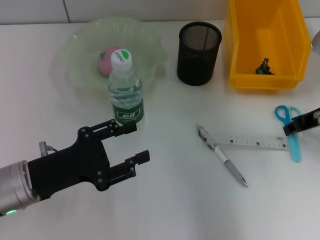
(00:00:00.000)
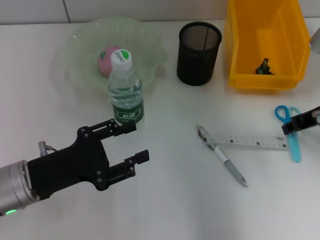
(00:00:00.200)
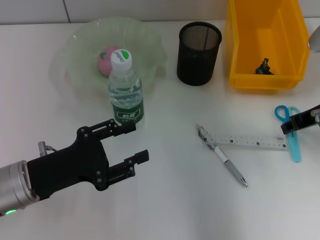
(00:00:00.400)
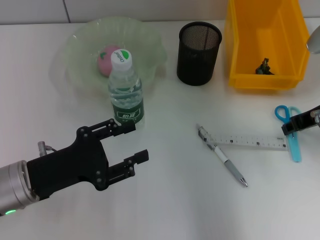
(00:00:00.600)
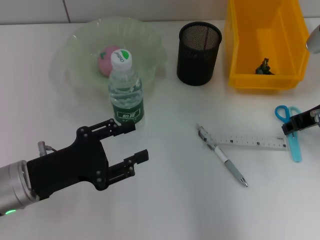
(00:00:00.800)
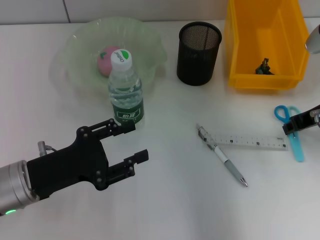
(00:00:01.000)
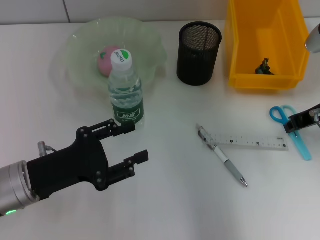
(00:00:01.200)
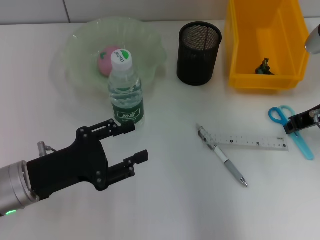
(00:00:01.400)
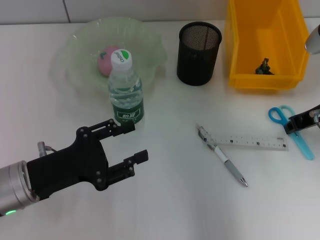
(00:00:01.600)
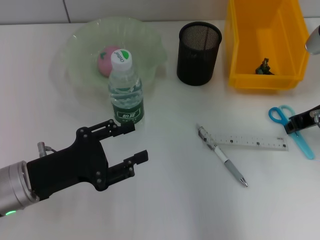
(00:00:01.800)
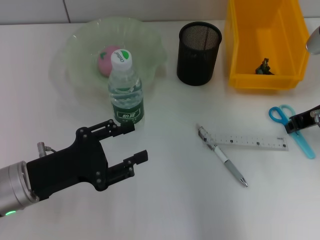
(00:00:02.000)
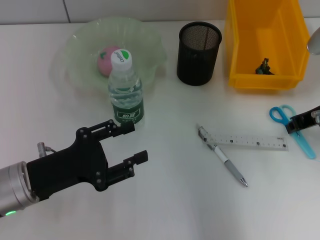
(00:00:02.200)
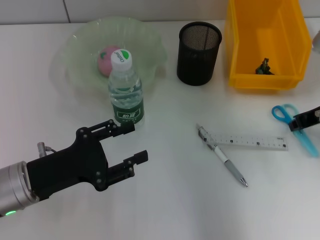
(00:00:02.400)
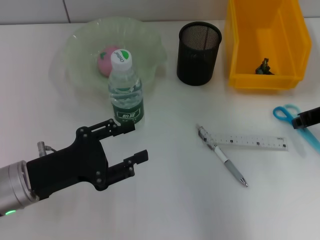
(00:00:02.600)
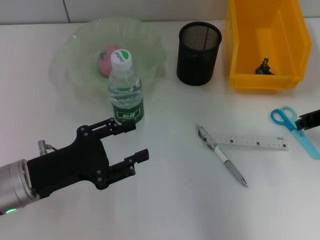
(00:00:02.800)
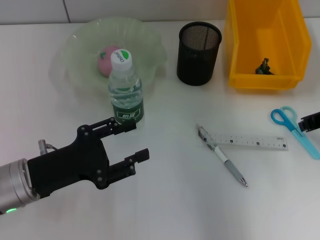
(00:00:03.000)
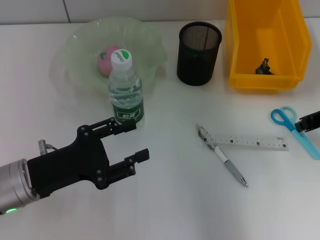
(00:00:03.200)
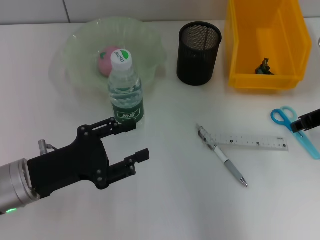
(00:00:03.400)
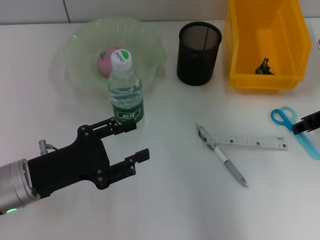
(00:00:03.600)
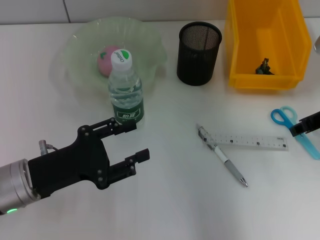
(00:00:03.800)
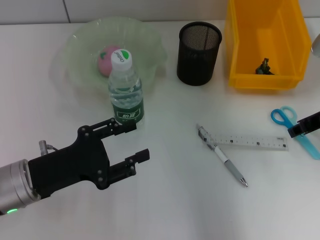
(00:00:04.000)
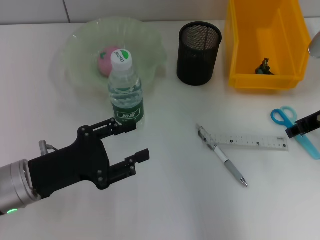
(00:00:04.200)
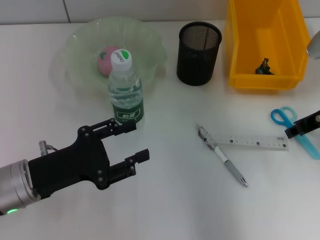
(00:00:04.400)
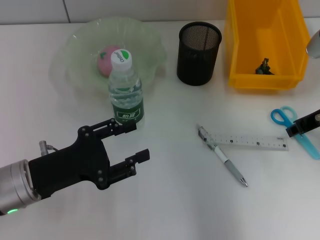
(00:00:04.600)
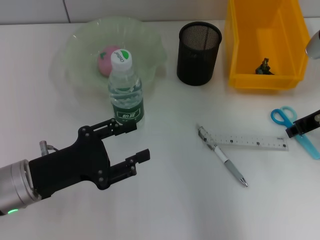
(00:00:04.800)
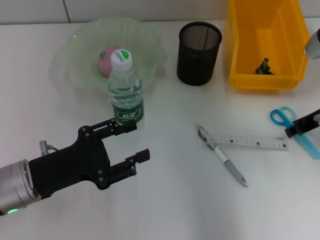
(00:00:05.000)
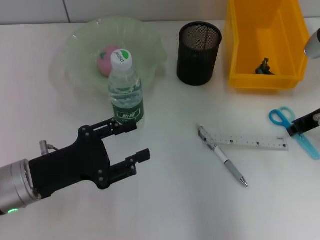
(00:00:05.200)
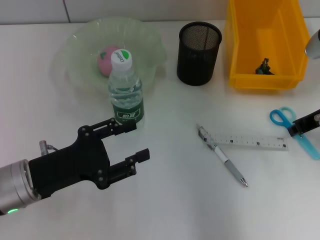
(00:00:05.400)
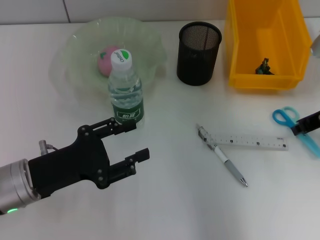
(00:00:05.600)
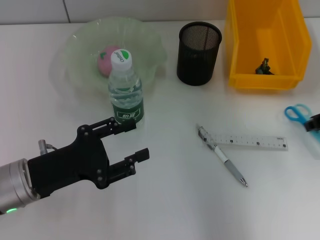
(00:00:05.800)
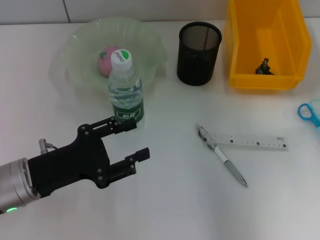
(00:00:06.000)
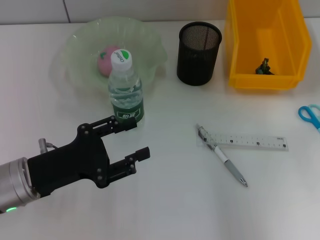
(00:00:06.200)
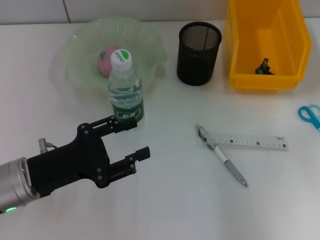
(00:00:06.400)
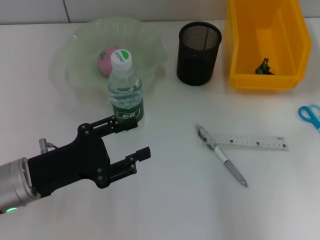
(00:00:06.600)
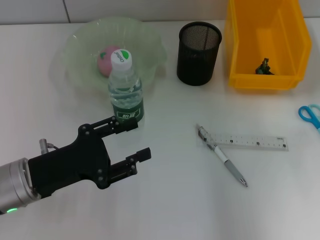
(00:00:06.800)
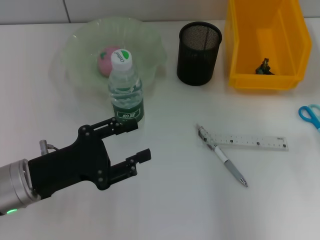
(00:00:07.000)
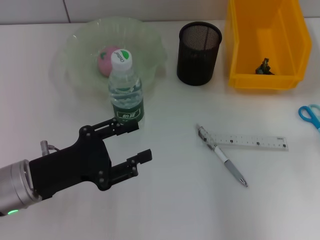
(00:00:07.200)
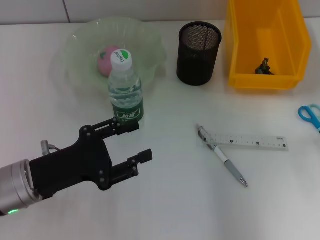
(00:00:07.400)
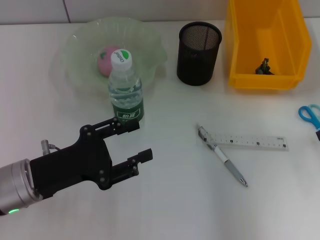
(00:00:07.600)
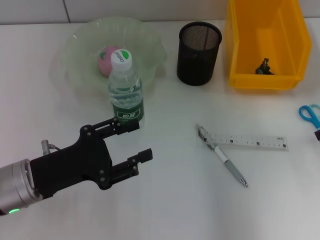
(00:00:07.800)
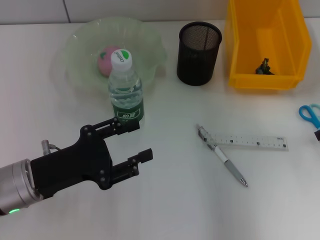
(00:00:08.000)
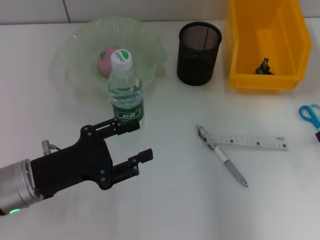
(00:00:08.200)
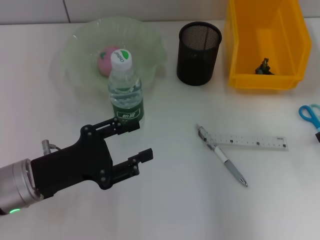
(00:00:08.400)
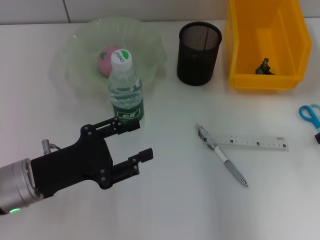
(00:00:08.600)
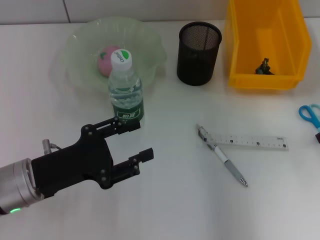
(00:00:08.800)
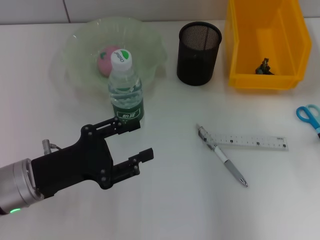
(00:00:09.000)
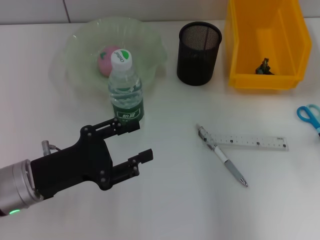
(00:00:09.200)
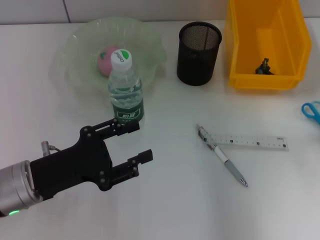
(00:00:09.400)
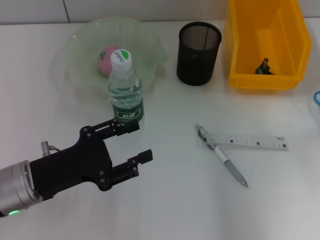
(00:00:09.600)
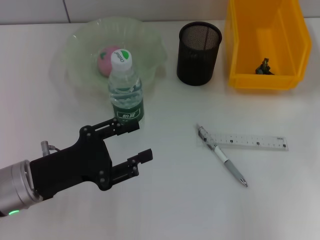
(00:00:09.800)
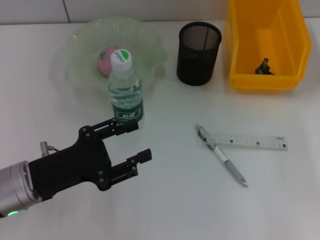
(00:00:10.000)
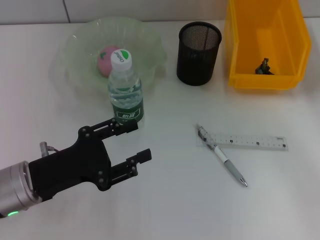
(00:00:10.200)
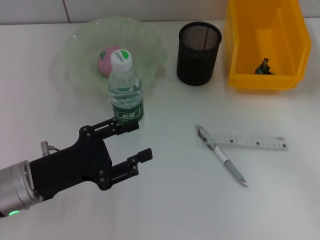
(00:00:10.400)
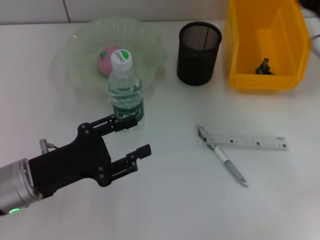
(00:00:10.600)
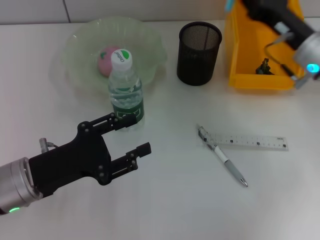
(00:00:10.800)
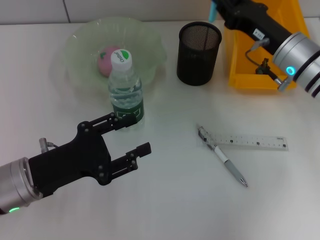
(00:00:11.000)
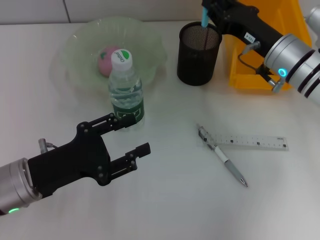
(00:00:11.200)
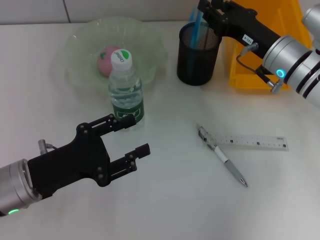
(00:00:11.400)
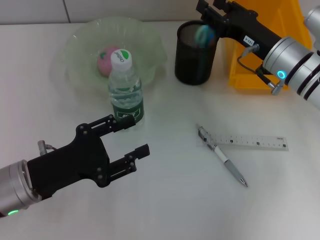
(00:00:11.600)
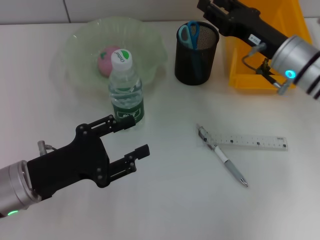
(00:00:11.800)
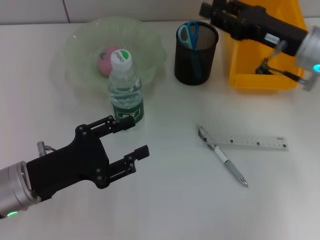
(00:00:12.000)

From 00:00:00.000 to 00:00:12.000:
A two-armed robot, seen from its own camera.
Step, from 00:00:00.000 to 00:00:08.800: Grab the blue scissors with the right hand.
Step, from 00:00:09.200 to 00:00:11.600: Place the blue scissors into the pen holder with the right hand.
From 00:00:00.000 to 00:00:01.600: Both grippers stay put.
From 00:00:01.600 to 00:00:03.000: The grippers make only small movements.
From 00:00:03.000 to 00:00:04.400: The right gripper opens.
From 00:00:04.400 to 00:00:06.000: The right gripper heads to the right, covering about 5 cm.
From 00:00:06.000 to 00:00:07.600: The grippers stay close to where they were, moving slightly.
From 00:00:07.600 to 00:00:09.000: Both grippers stay about where they are.
From 00:00:10.400 to 00:00:12.000: The right gripper goes about 10 cm to the left, and opens.

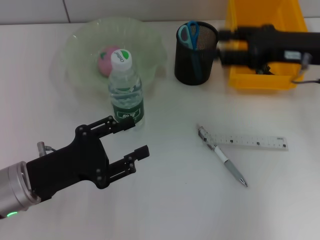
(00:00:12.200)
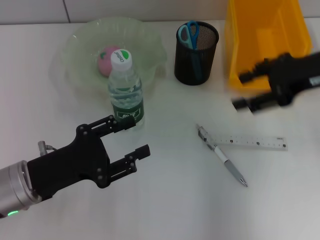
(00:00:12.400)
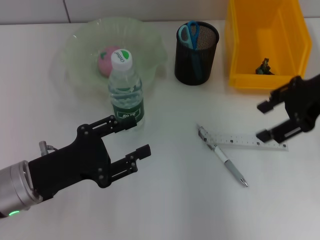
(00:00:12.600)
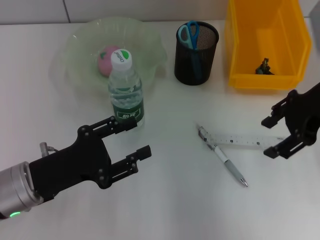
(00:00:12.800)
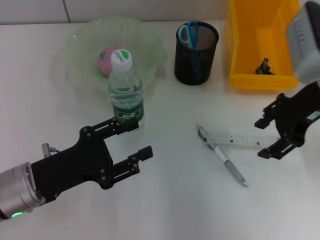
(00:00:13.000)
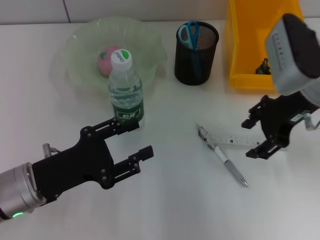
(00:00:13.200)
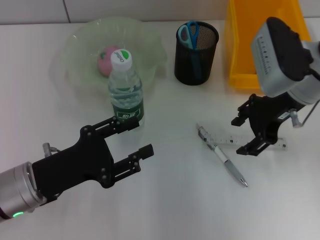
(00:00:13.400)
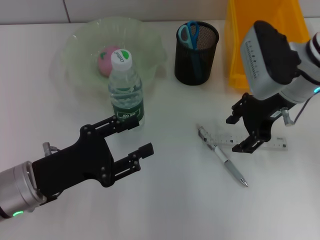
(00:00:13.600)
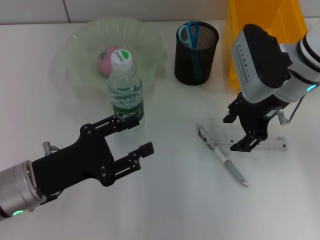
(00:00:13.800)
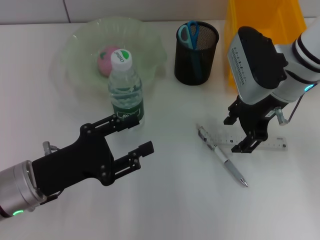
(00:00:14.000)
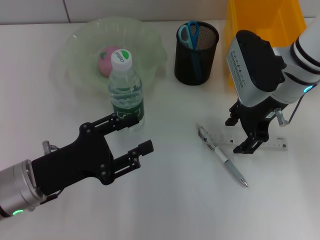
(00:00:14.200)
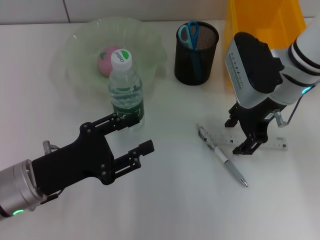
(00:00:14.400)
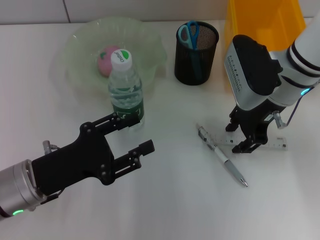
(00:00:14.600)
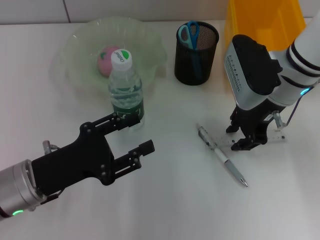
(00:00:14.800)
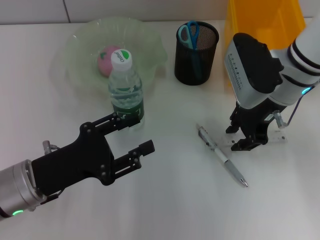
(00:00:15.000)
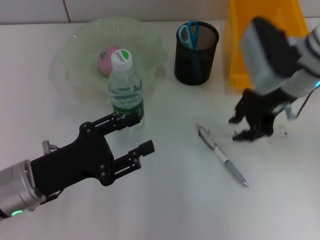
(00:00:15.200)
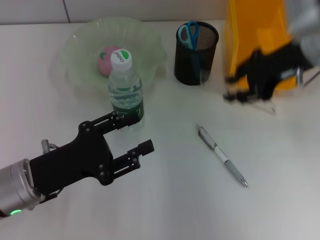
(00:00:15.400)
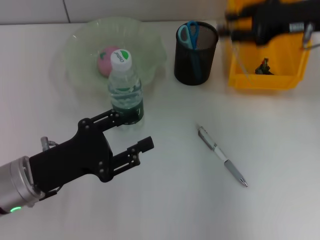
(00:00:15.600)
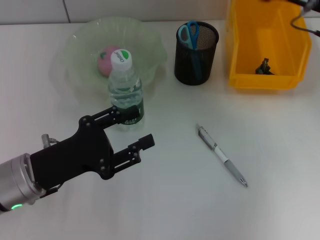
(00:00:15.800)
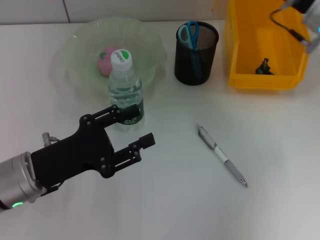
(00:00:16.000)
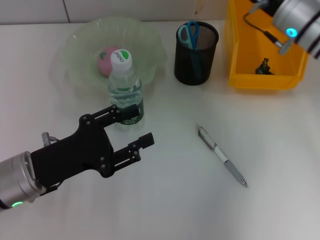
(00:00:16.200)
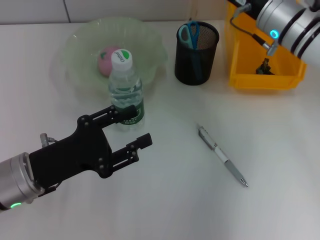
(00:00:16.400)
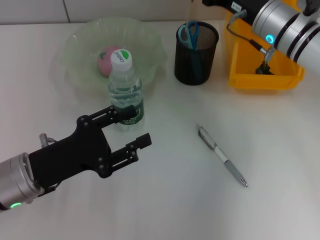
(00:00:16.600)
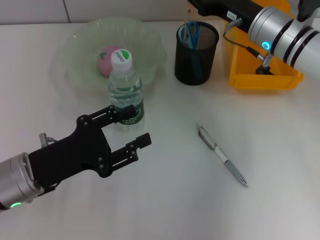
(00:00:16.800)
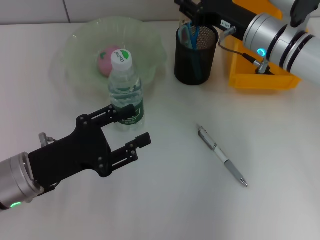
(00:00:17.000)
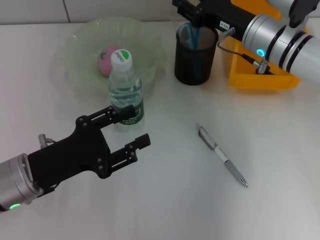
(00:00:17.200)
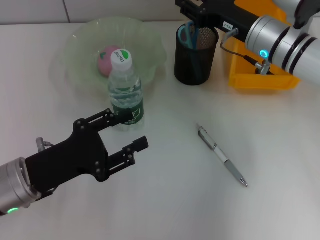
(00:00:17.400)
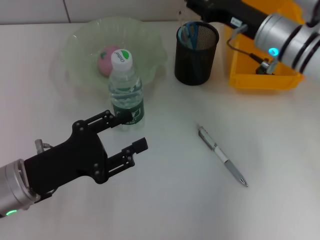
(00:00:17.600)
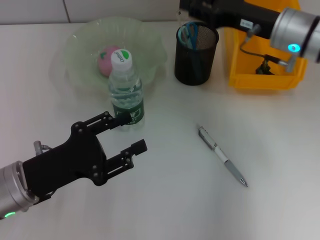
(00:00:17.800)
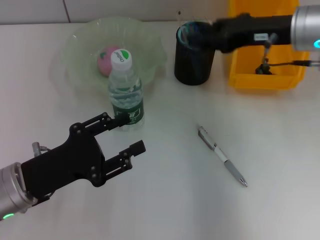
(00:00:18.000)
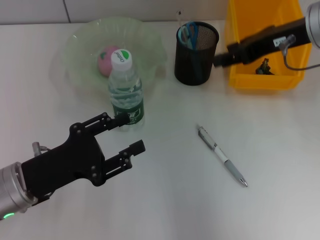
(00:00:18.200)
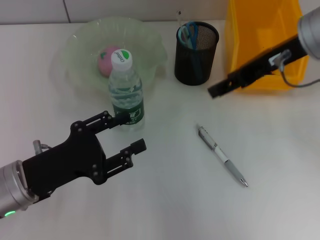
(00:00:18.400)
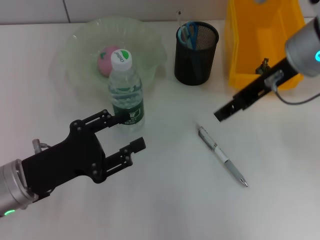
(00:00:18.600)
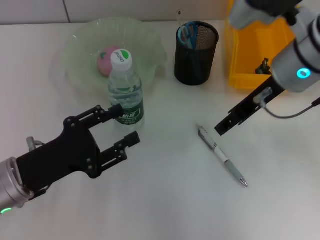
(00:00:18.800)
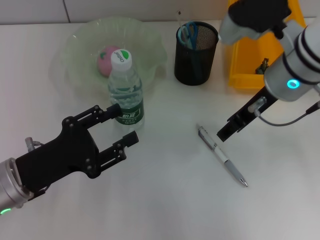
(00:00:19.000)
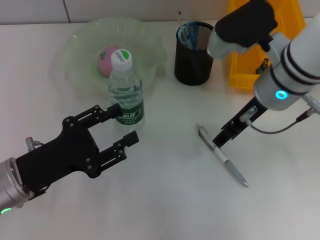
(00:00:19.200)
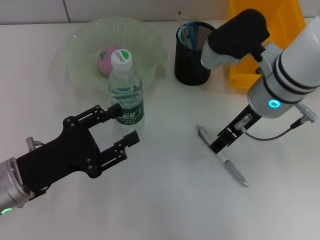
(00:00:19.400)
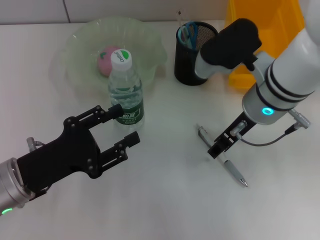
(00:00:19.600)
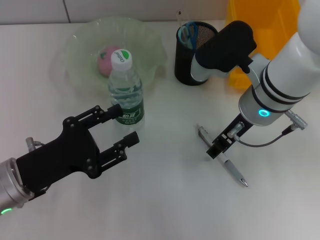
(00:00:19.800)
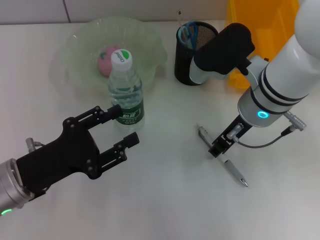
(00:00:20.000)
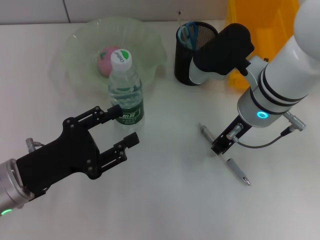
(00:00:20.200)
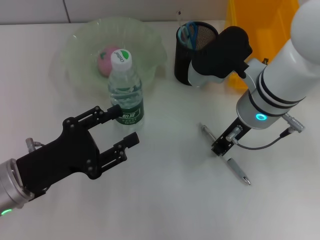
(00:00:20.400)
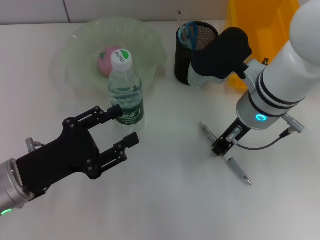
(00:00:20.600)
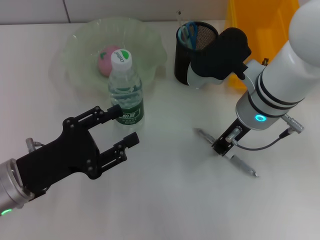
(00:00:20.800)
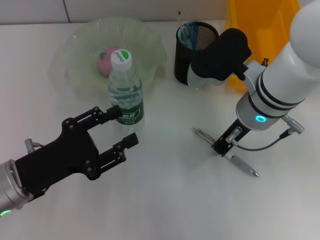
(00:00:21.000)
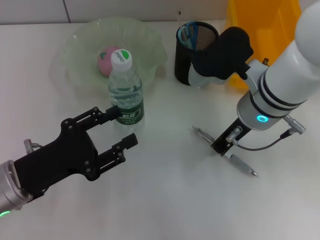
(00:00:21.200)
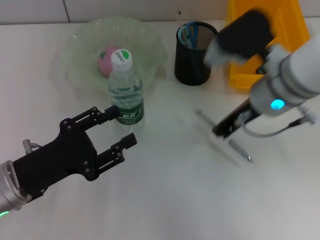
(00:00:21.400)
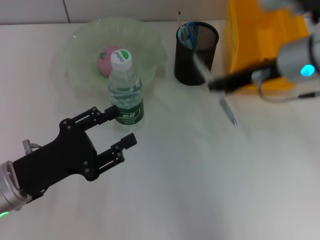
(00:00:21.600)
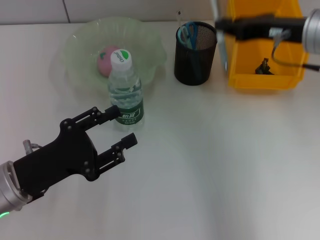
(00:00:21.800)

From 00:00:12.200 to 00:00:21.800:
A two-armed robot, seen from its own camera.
Step, from 00:00:12.200 to 00:00:14.800: Grab the ruler with the right hand.
Step, from 00:00:15.000 to 00:00:17.600: Place the ruler into the pen holder with the right hand.
Step, from 00:00:17.800 to 00:00:21.000: Grab the gray spring-action pen with the right hand.
From 00:00:12.200 to 00:00:13.800: The right gripper moves to the left, approximately 10 cm.
From 00:00:13.800 to 00:00:15.400: The right gripper is displaced upward by about 5 cm, and closes up.
From 00:00:15.400 to 00:00:17.000: The right gripper shifts about 10 cm downward and to the left.
From 00:00:17.000 to 00:00:18.600: The right gripper travels upward and backward by approximately 10 cm.
From 00:00:18.600 to 00:00:20.200: The right gripper is displaced downward and to the left by some 10 cm.
From 00:00:20.200 to 00:00:21.800: The right gripper goes roughly 10 cm to the right, and closes its fingers.
